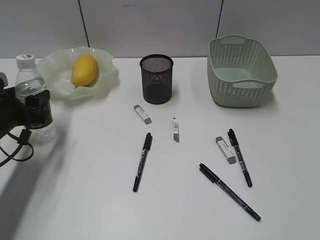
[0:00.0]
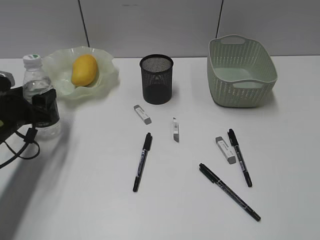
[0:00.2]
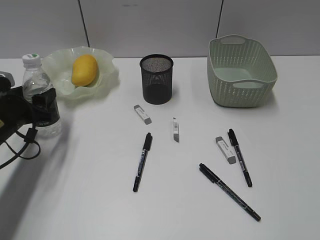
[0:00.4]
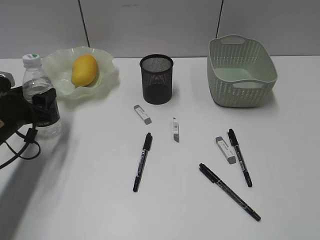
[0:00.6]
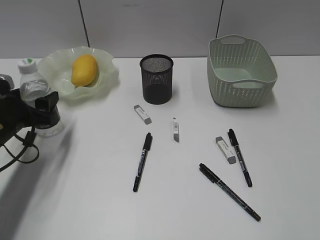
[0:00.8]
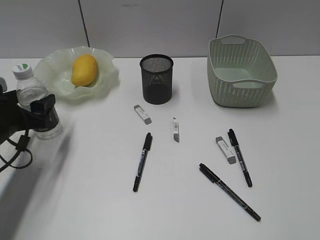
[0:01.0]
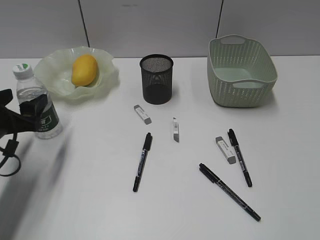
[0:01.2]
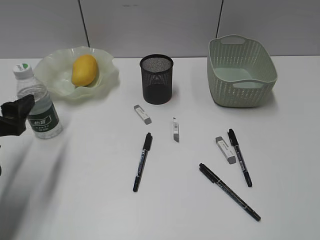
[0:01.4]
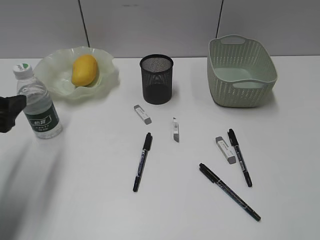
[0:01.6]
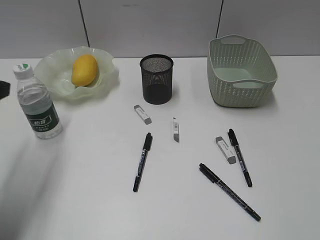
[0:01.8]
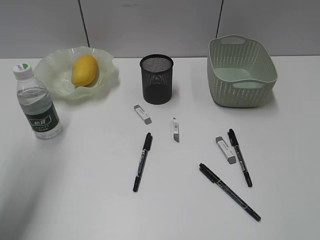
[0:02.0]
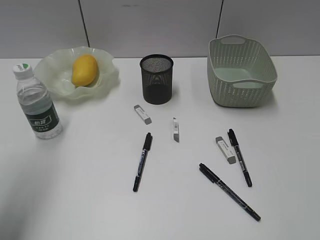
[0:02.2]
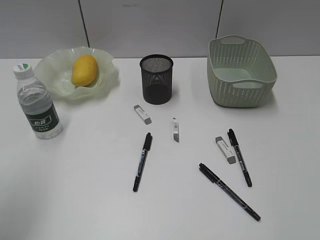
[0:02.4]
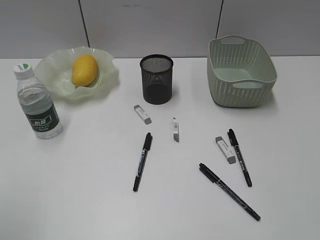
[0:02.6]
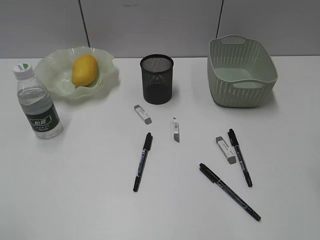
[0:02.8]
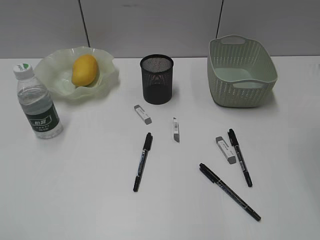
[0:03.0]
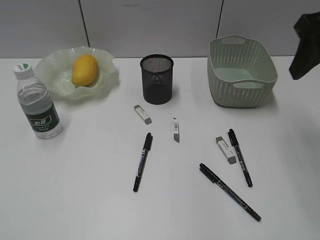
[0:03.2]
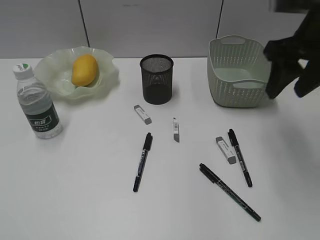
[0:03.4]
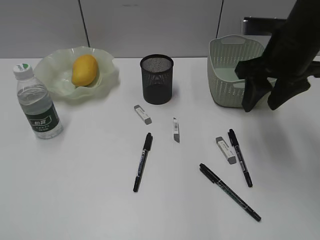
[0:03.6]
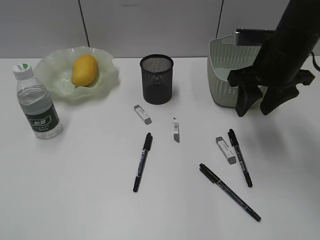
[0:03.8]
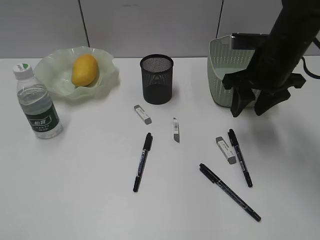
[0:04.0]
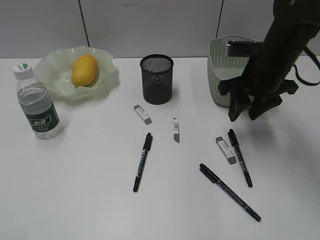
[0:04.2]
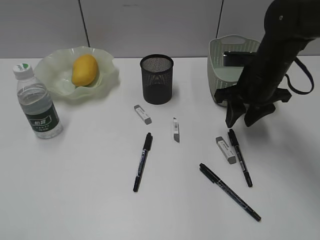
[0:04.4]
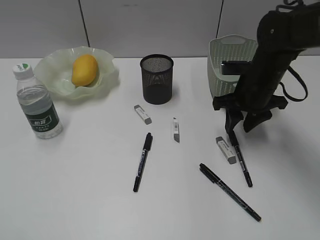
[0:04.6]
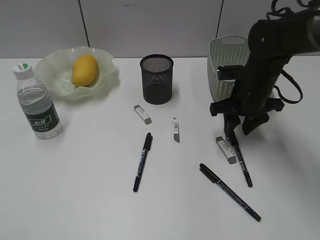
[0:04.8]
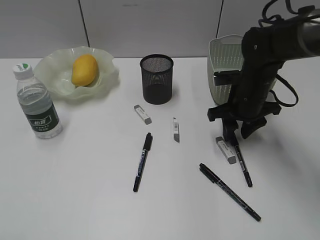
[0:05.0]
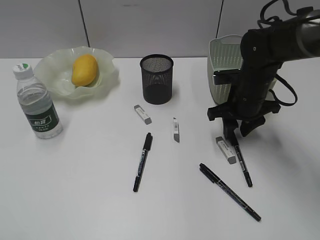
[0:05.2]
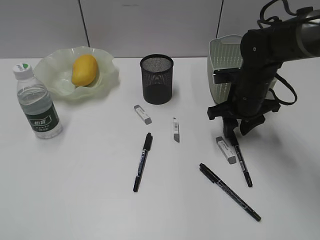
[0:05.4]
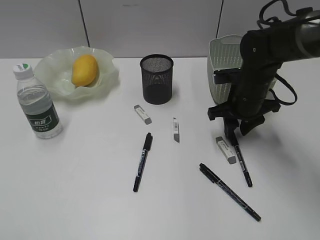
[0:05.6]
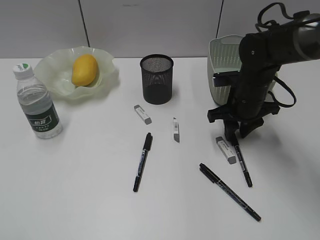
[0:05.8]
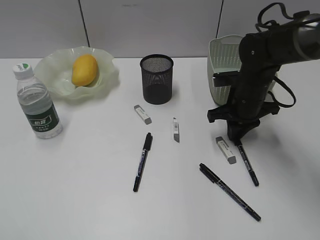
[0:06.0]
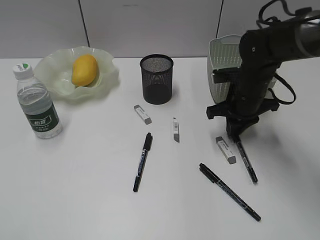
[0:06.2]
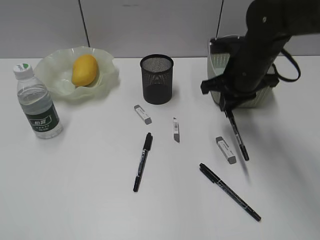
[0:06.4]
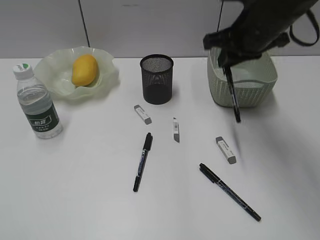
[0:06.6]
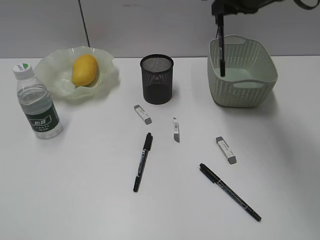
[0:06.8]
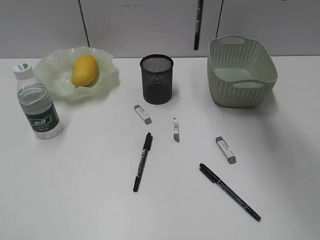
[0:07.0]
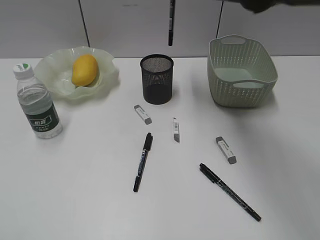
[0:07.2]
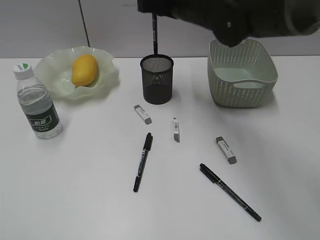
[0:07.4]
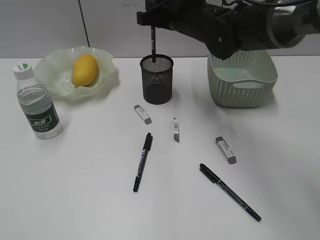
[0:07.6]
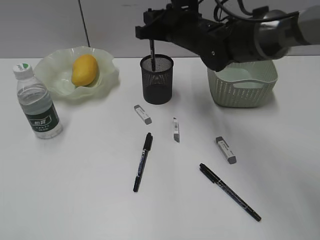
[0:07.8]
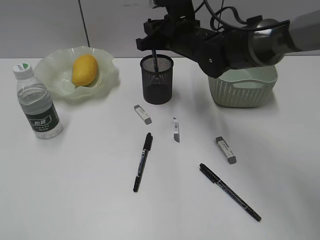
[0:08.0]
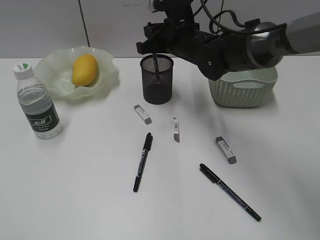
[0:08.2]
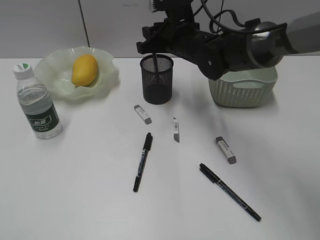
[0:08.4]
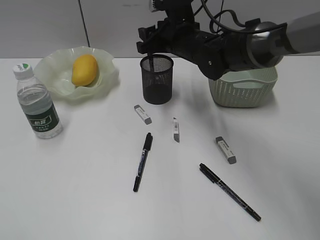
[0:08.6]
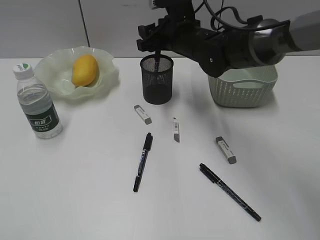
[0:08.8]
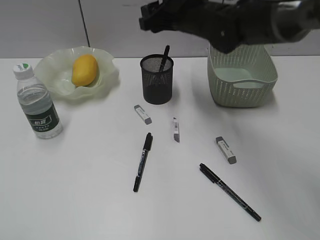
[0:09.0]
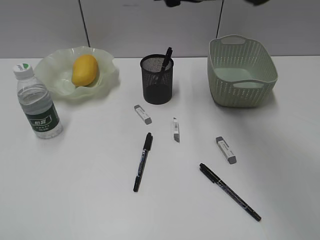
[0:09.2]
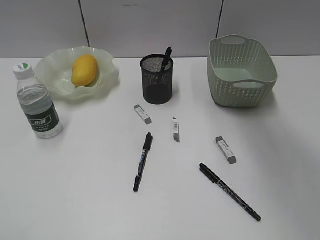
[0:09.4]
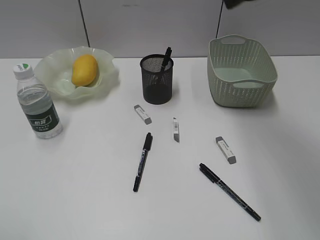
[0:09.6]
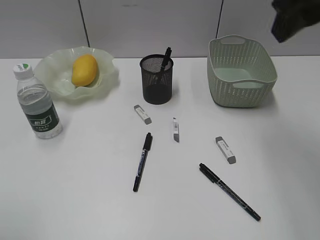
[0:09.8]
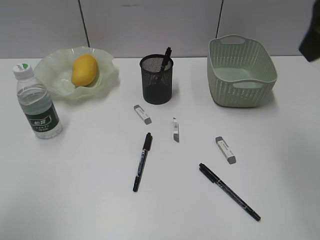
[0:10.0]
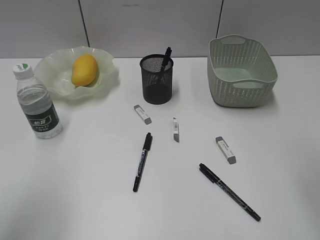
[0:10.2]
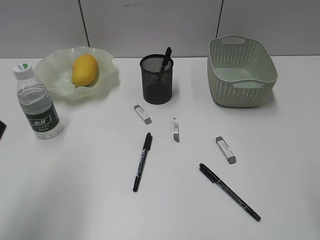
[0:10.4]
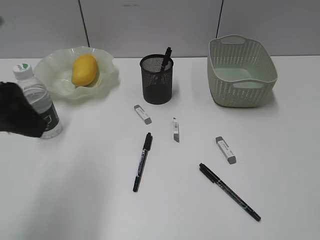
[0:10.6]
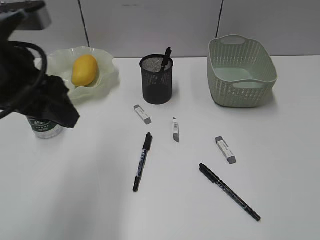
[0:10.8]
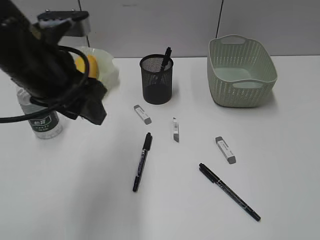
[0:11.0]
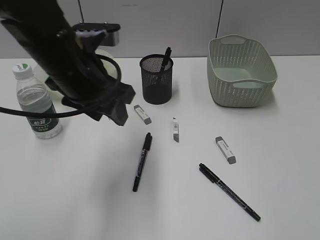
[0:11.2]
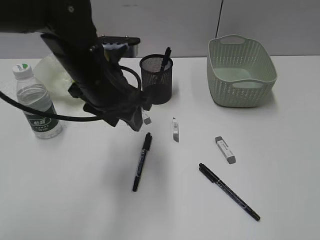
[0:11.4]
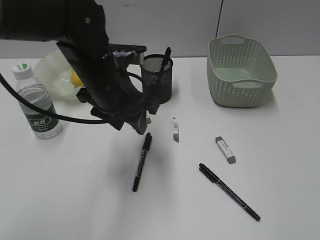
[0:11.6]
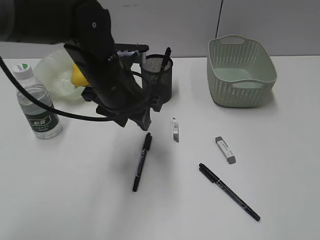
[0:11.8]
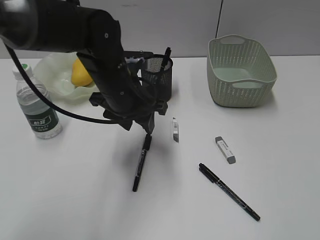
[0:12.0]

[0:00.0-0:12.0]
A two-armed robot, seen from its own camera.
Step, 0:01.4 to 0:06.0: Grasp the black pen with right gripper.
Step, 0:06.2 to 0:08.6: Place the black pen in pen holder with right gripper.
0:00.0 to 0:01.6: The left gripper is displaced upward and backward by some 10 cm.
0:01.6 to 0:03.0: The right gripper travels forward by roughly 25 cm. Meanwhile the left gripper goes some 25 cm backward and upward.
0:03.0 to 0:04.4: The right gripper heads downward and forward, covering approximately 25 cm.
0:04.4 to 0:06.0: The right gripper shifts by about 5 cm, and closes up.
0:06.0 to 0:07.6: The right gripper moves upward and to the left, some 15 cm.
0:07.6 to 0:09.0: The right gripper opens its fingers.
0:09.0 to 0:10.4: The right gripper heads backward and to the right, covering about 35 cm, while the left gripper heads forward and to the right, covering roughly 20 cm.
0:10.4 to 0:12.0: The right gripper shifts about 15 cm backward and to the right. The left gripper moves to the right, forward and downward, about 30 cm.

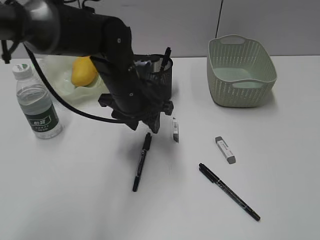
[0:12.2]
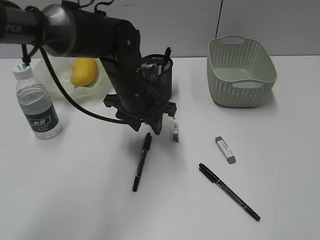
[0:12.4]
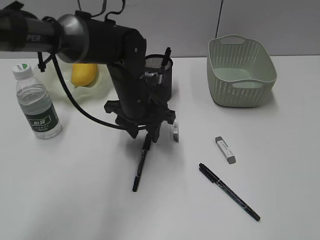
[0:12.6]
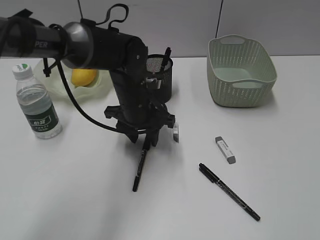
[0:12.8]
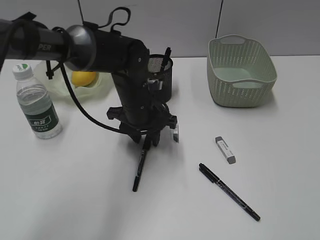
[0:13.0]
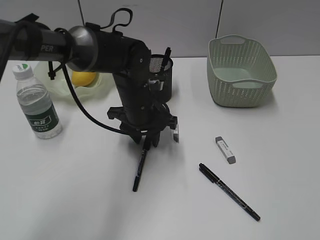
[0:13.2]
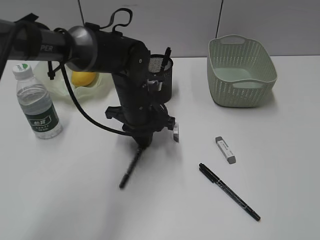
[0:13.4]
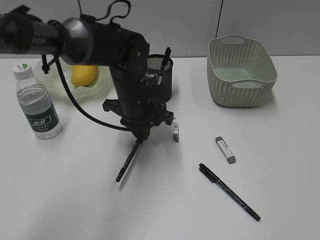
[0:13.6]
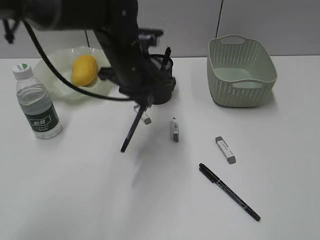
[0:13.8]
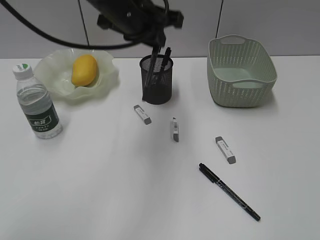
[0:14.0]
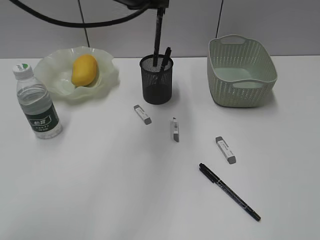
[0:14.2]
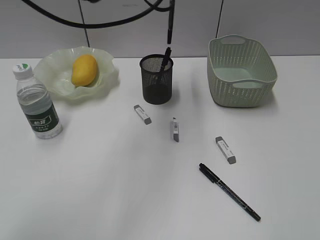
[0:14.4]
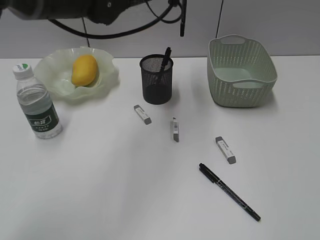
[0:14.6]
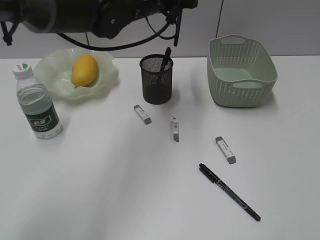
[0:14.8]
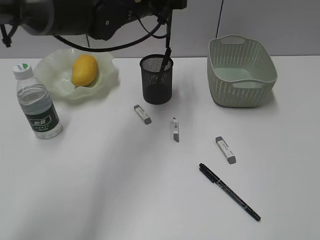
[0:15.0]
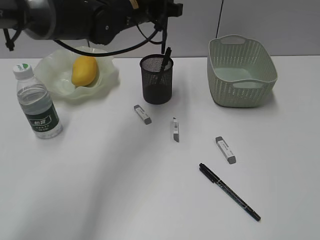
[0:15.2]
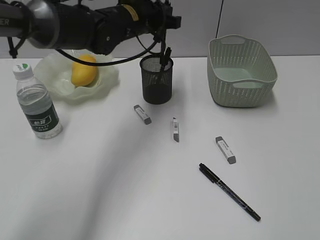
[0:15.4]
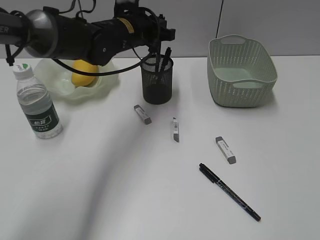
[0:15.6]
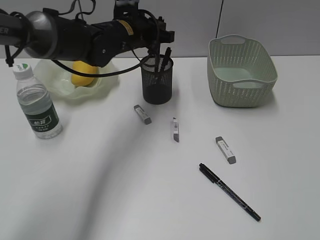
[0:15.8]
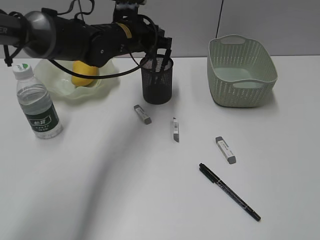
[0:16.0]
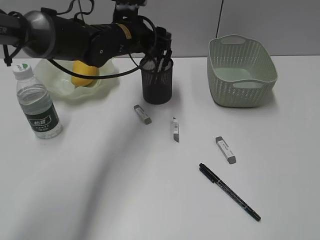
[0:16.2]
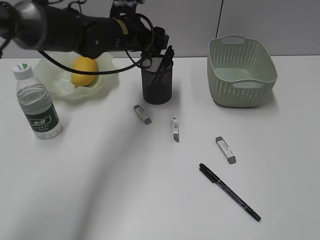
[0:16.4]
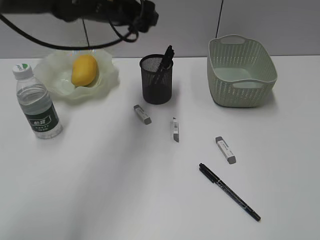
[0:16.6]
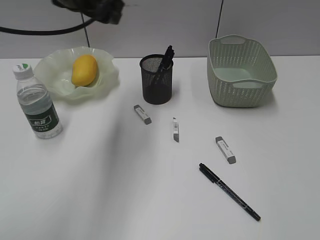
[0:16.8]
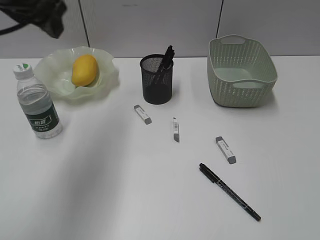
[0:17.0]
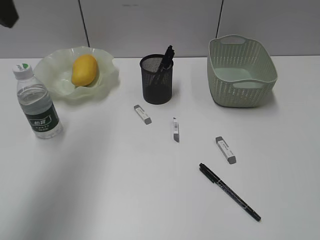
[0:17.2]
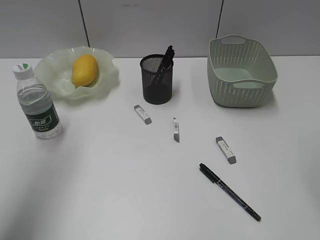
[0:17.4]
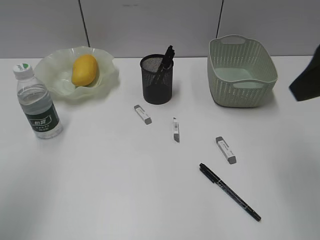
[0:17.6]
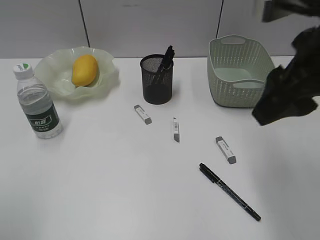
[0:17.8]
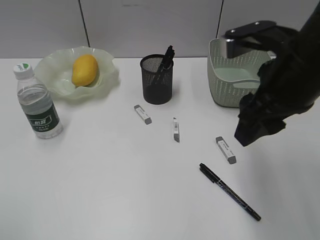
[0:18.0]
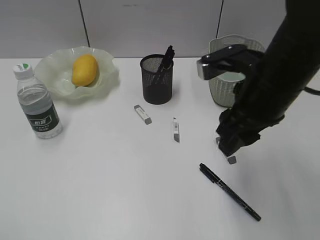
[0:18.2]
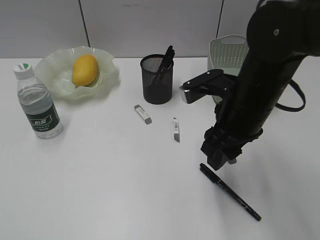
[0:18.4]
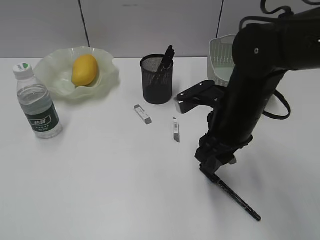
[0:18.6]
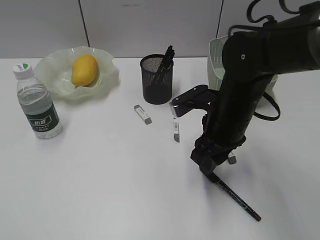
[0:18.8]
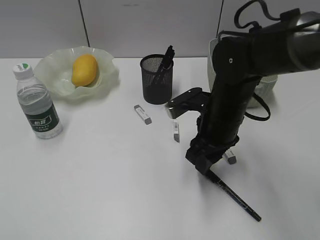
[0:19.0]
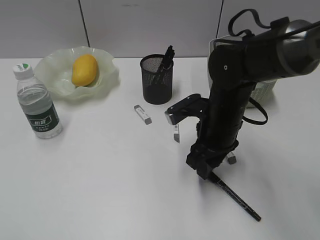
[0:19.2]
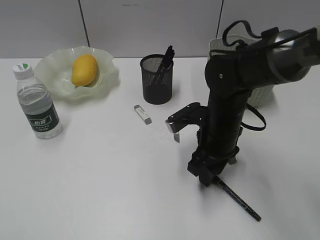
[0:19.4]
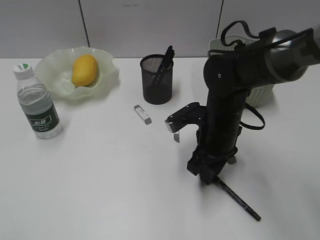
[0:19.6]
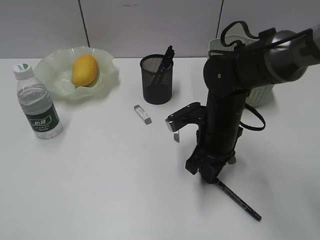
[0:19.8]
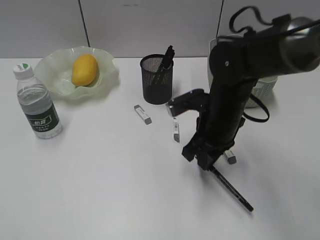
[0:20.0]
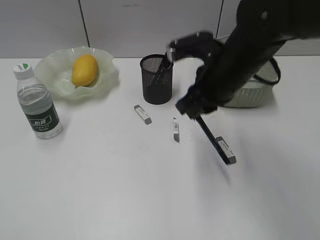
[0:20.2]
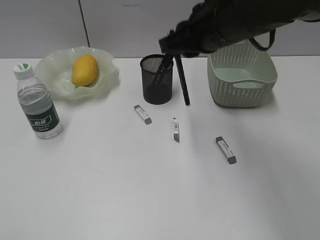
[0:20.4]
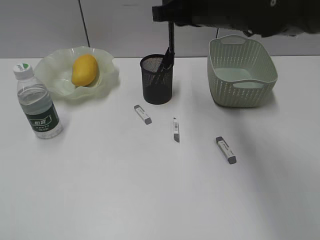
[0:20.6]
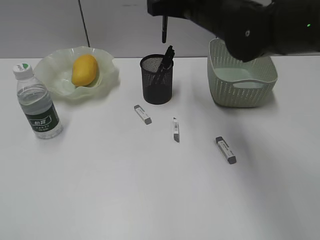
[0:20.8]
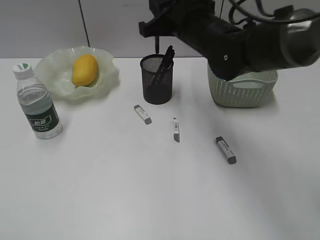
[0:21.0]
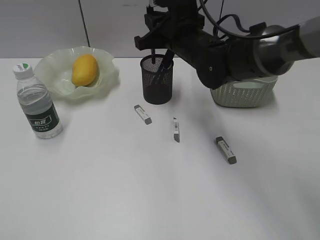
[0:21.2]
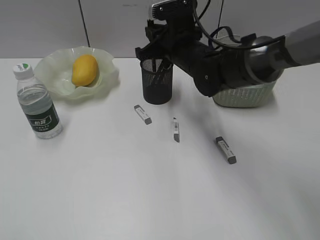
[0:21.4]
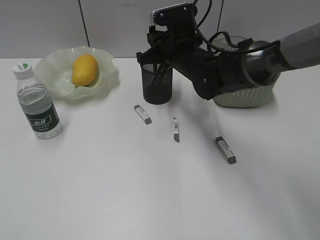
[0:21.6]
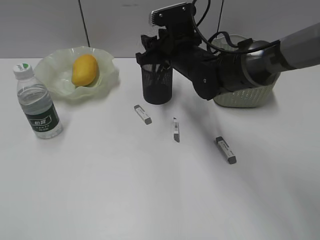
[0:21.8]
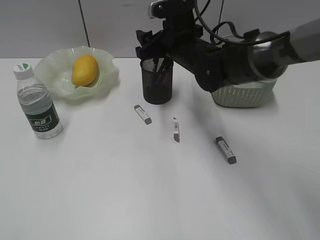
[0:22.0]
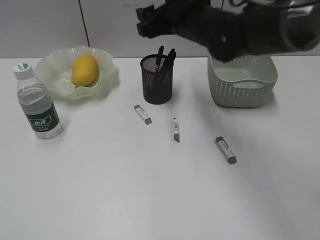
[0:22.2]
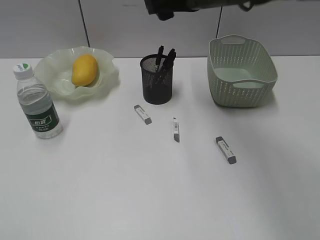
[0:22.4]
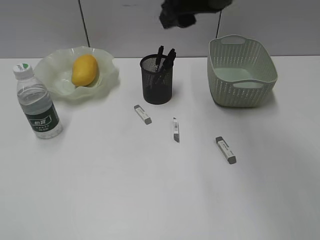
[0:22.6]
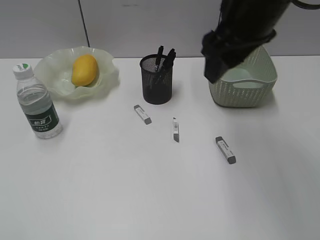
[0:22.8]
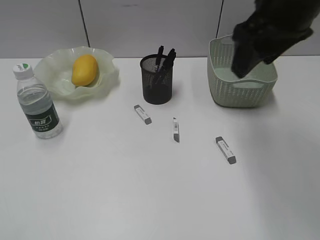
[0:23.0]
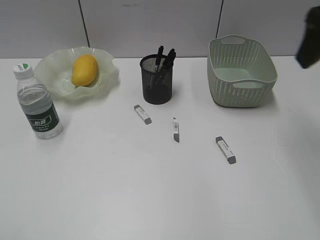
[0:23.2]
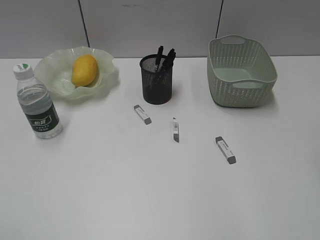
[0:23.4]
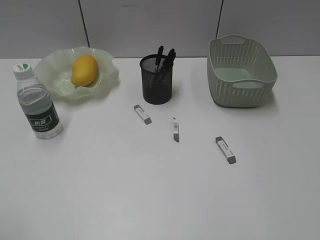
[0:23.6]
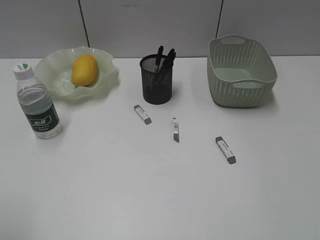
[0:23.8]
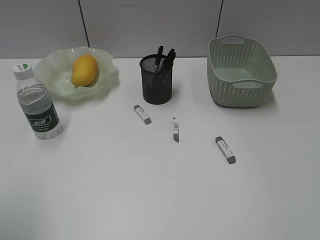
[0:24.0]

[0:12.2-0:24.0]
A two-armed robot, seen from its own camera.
Step, 0:13.6 to 0:16.4: Place the black pen in pen holder with left gripper.
Step, 0:16.6 to 0:19.8: Grasp the black pen with right gripper.
Step, 0:20.0 to 0:22.0: Place the black pen in pen holder with right gripper.
0:12.2 to 0:13.6: The left gripper closes up.
0:13.6 to 0:15.2: The left gripper heads upward and forward, covering roughly 15 cm.
0:15.2 to 0:16.6: The left gripper moves approximately 5 cm, and opens its fingers.
0:16.6 to 0:18.2: The right gripper shifts some 30 cm forward and to the left. Meanwhile the left gripper goes roughly 50 cm backward and to the left.
0:18.2 to 0:19.6: The right gripper shifts approximately 15 cm downward.
0:19.6 to 0:21.0: The right gripper goes some 15 cm upward and forward.
0:21.0 to 0:22.6: The right gripper travels upward and backward by roughly 10 cm, and opens its fingers.
0:22.6 to 0:24.0: The right gripper heads backward and to the right, covering about 35 cm; the left gripper moves forward, approximately 10 cm.
